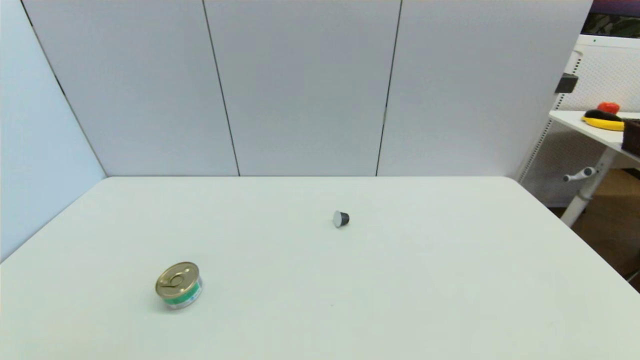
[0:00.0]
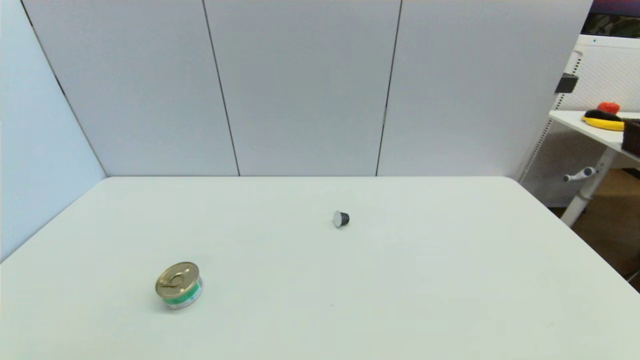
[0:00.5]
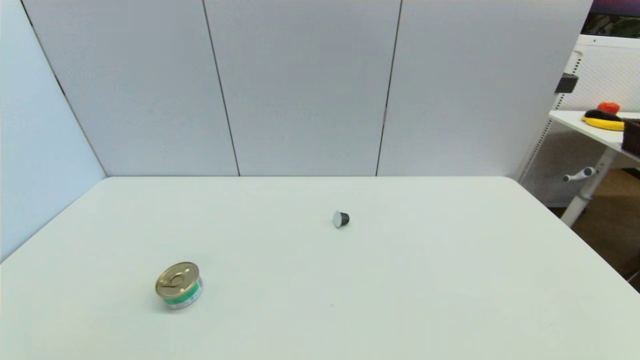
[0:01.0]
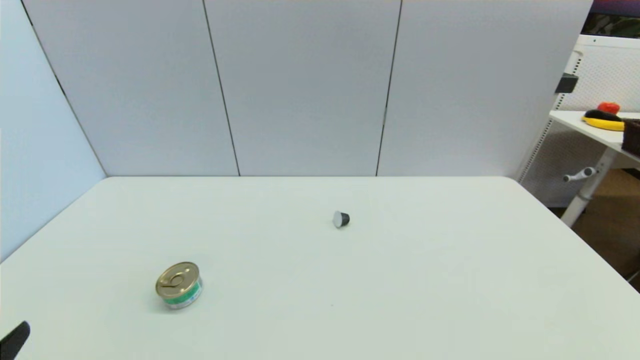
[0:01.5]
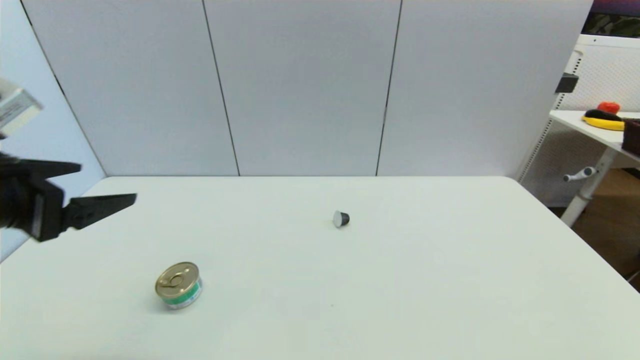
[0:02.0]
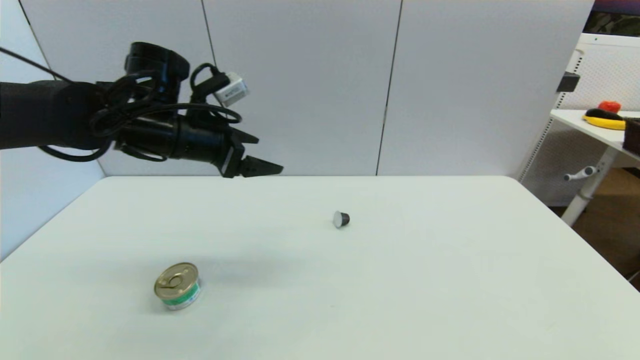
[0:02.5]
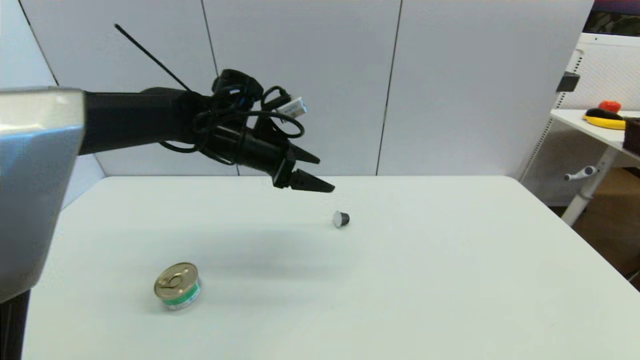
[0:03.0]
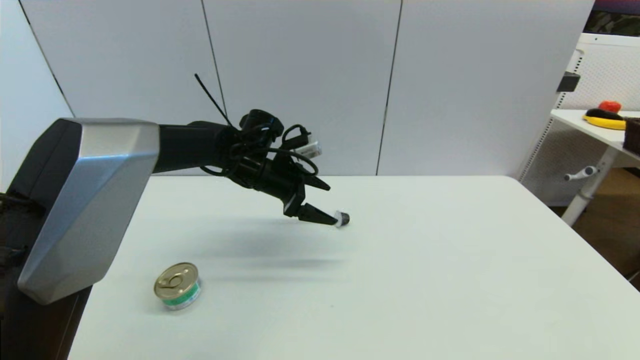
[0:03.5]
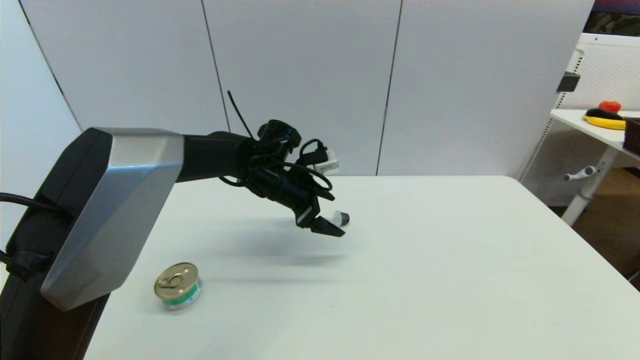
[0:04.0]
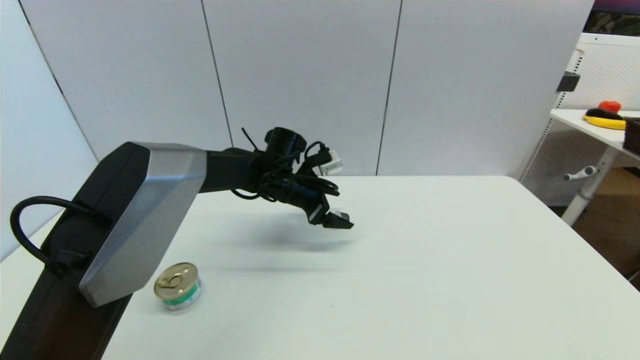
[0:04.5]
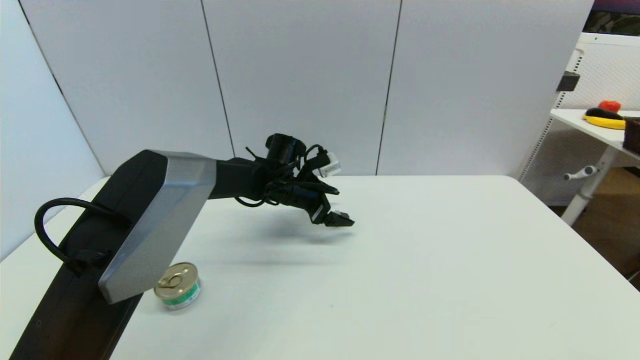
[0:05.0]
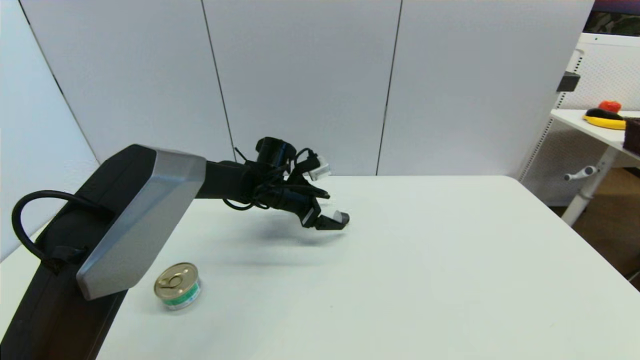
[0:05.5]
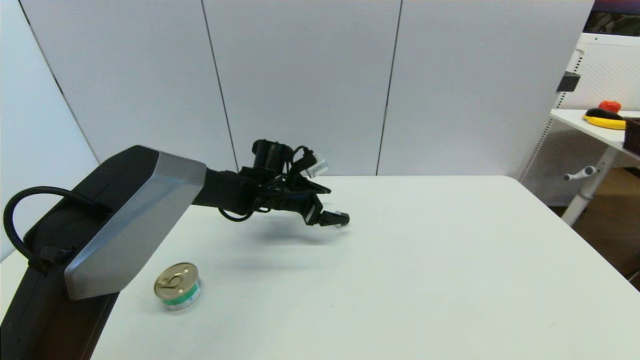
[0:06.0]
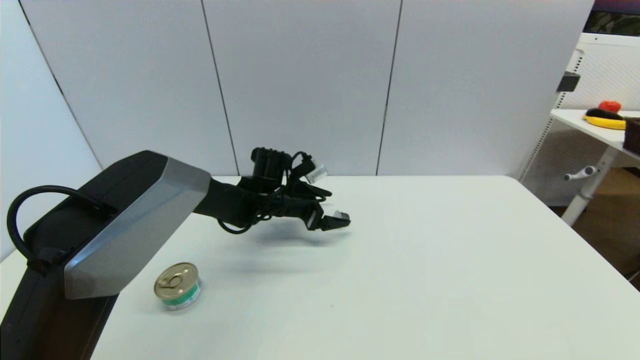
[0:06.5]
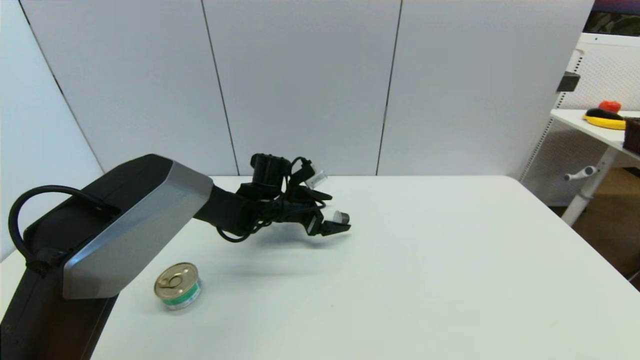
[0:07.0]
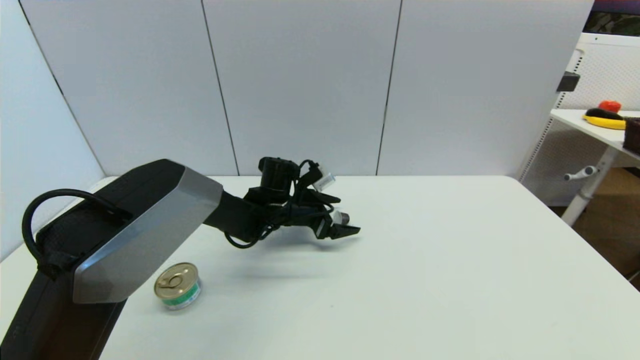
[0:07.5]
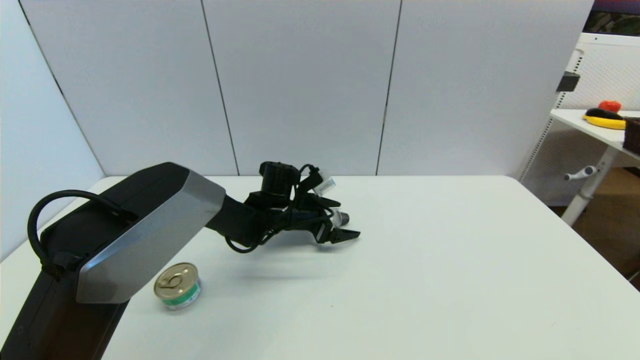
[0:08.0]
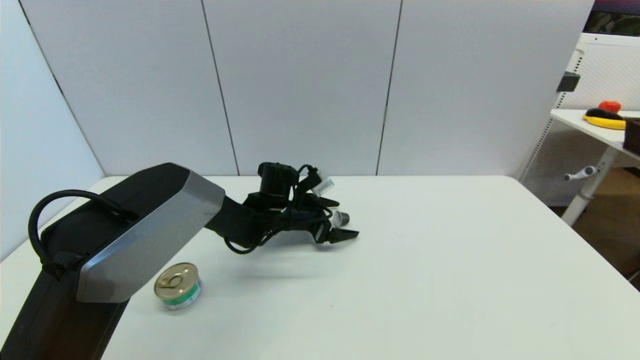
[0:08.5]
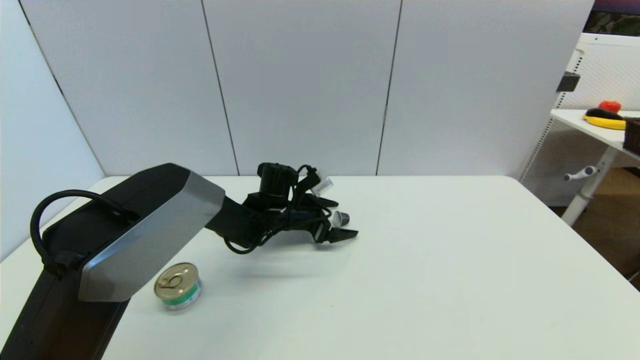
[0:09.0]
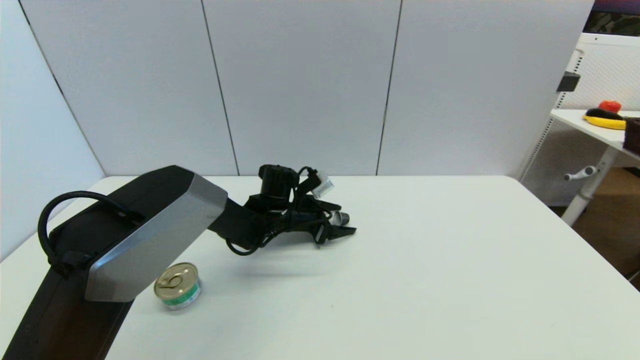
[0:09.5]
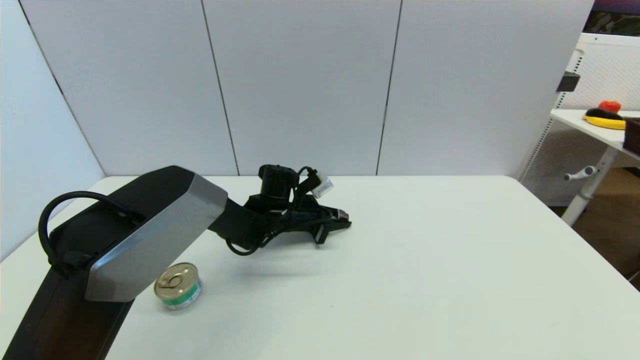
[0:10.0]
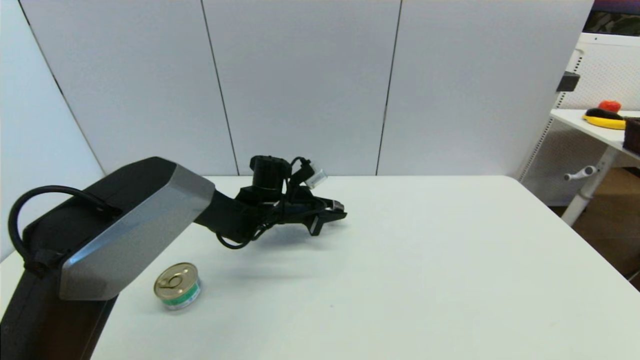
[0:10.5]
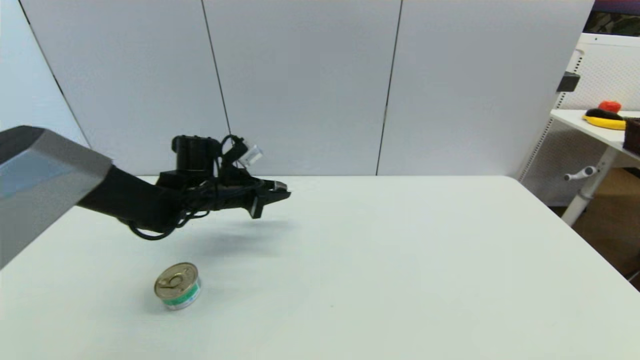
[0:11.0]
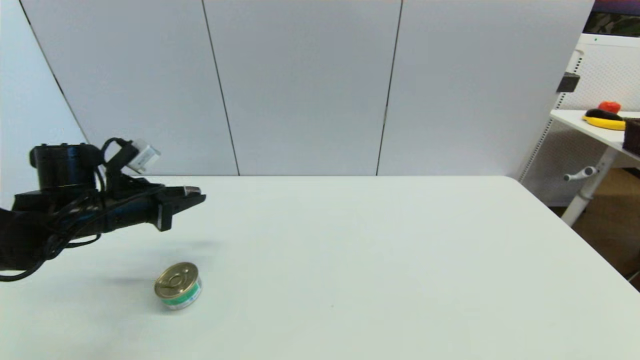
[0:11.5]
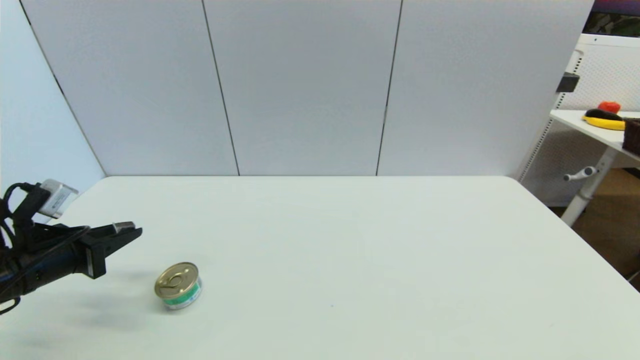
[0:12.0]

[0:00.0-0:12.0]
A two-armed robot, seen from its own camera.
Step, 0:01.5 to 0:10.0: Grasp the coffee capsule with left gripper.
0:00.0 to 0:02.0: The left gripper heads upward and forward, covering about 30 cm.
0:02.0 to 0:04.0: The left gripper goes some 35 cm forward, to the right and downward.
0:04.0 to 0:06.0: The left gripper changes place by roughly 5 cm.
0:06.0 to 0:08.0: The grippers move only a little.
0:08.0 to 0:10.0: The left gripper closes.
0:10.0 to 0:12.0: The left gripper is displaced to the left and backward by about 35 cm.

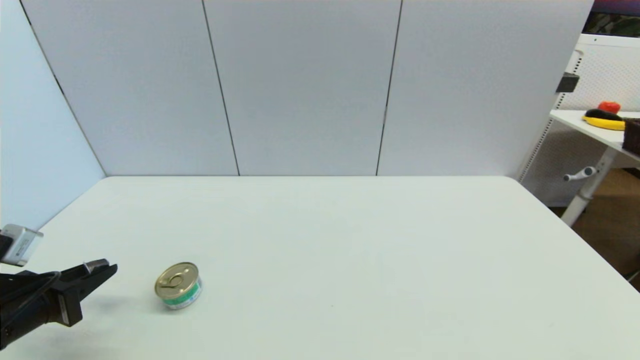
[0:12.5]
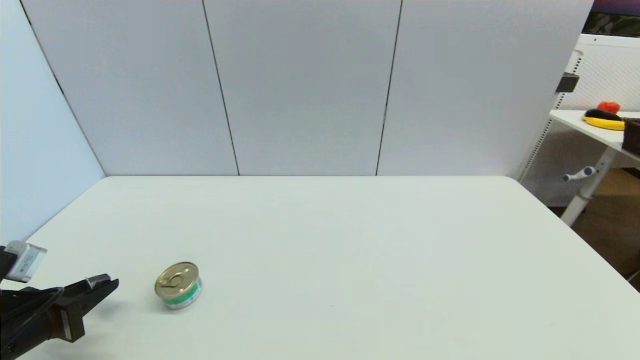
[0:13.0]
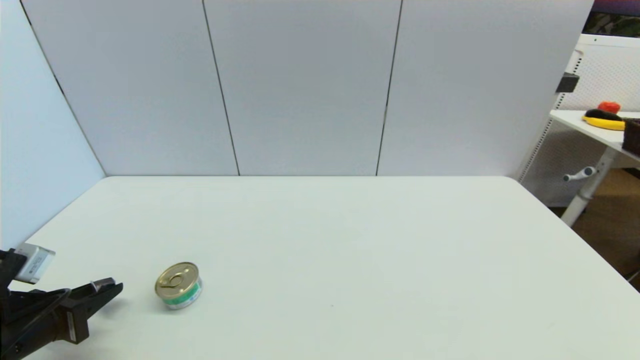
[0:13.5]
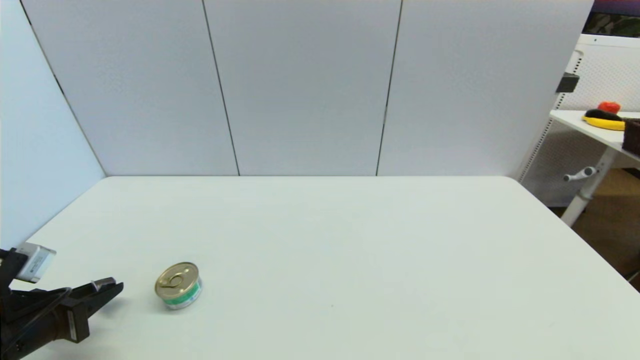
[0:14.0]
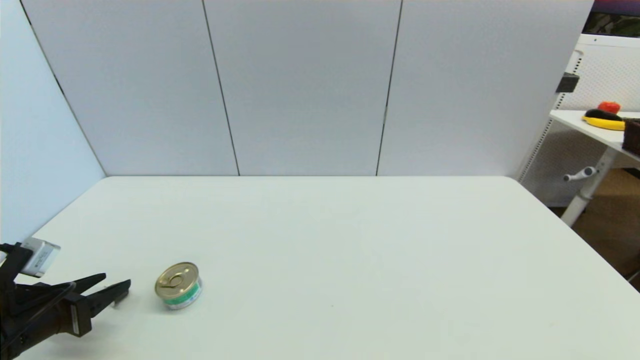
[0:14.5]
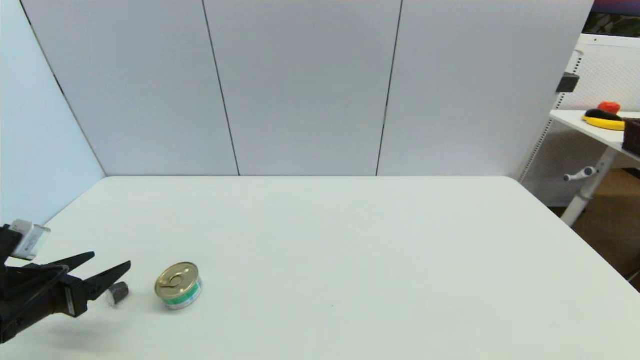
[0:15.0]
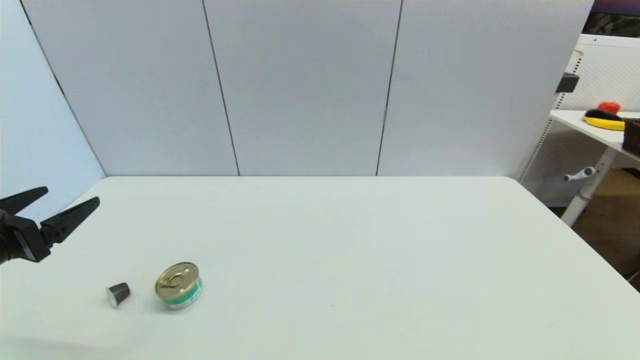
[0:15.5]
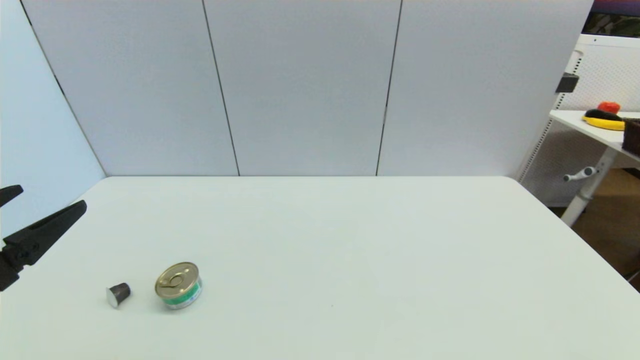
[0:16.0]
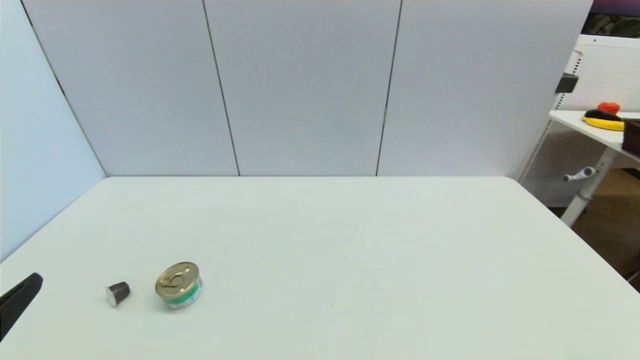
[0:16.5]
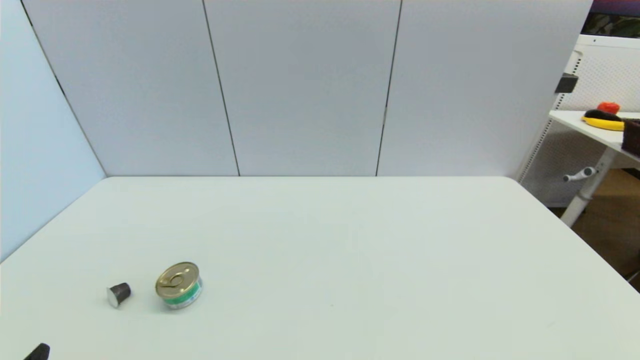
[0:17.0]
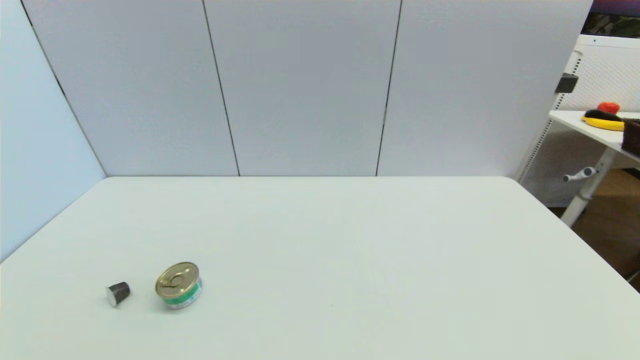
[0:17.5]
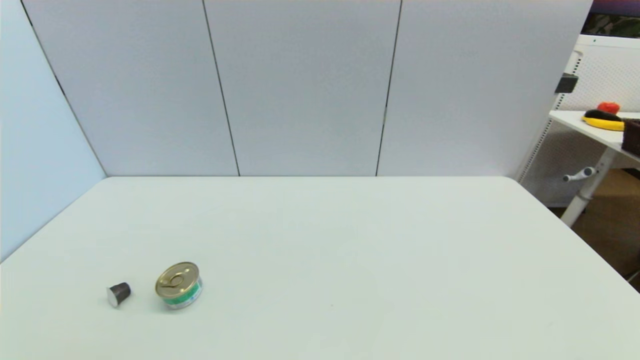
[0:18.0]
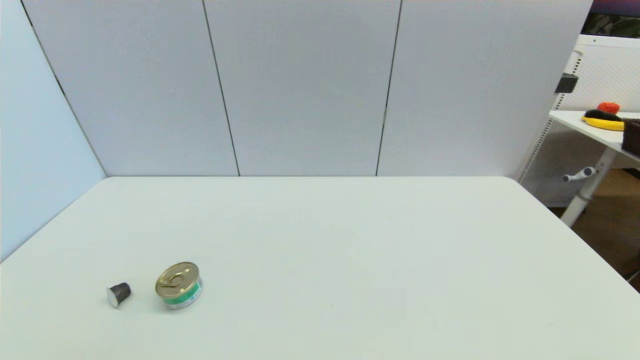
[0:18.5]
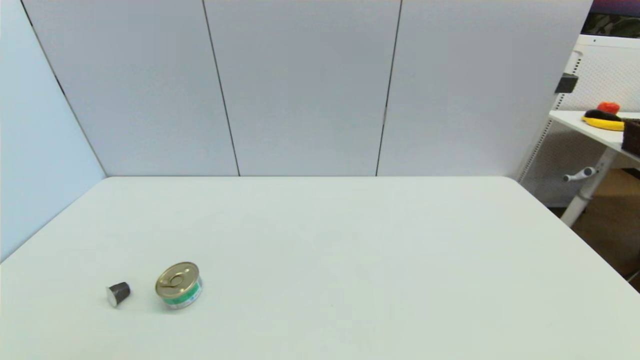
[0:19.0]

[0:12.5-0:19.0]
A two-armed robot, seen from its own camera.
Step, 0:12.5 to 0:14.5: Place the coffee capsule on the table with left gripper.
0:12.5 to 0:14.5: The left gripper opens its fingers.
0:14.5 to 0:17.0: The left gripper moves backward and to the right, about 20 cm, and opens up.
